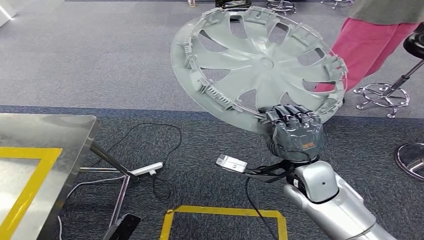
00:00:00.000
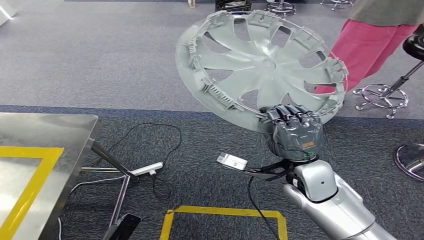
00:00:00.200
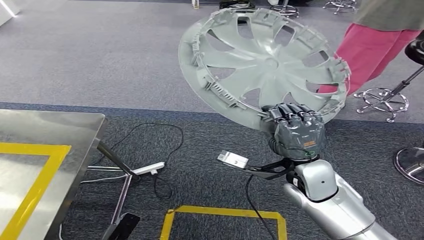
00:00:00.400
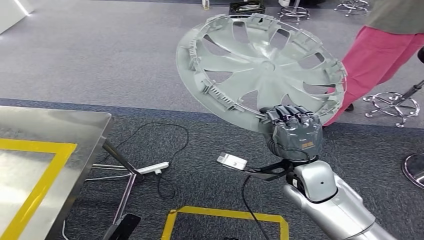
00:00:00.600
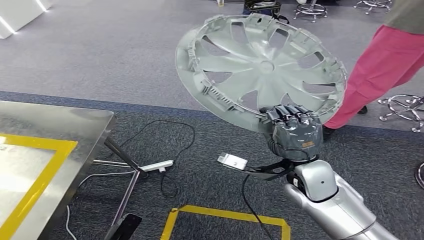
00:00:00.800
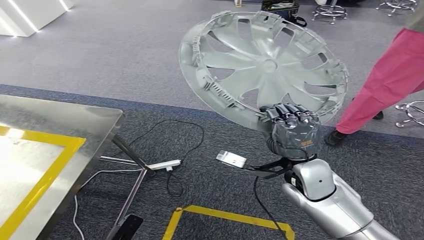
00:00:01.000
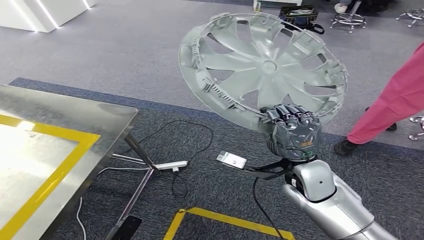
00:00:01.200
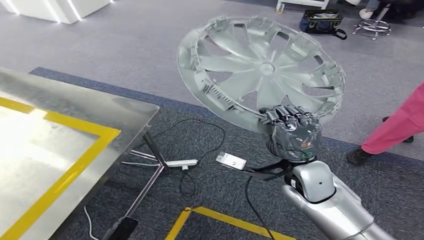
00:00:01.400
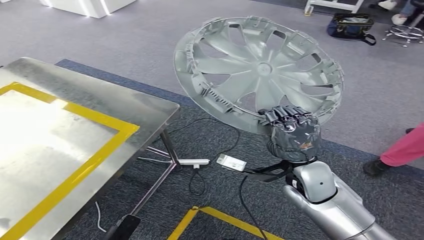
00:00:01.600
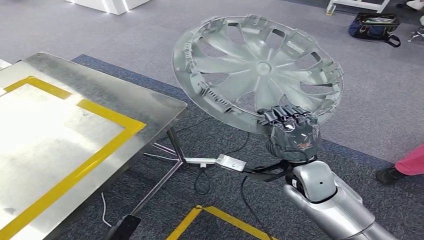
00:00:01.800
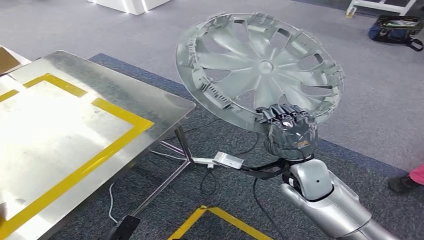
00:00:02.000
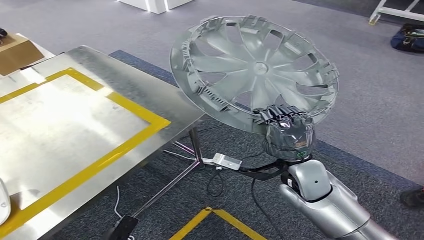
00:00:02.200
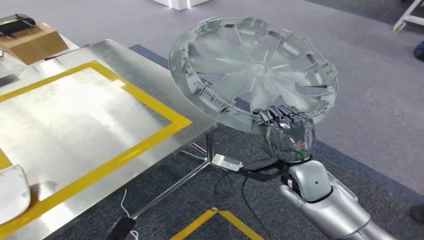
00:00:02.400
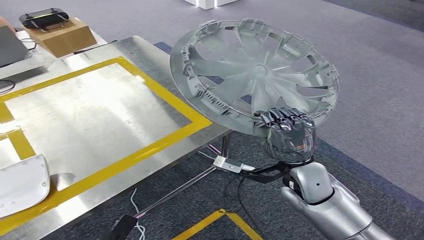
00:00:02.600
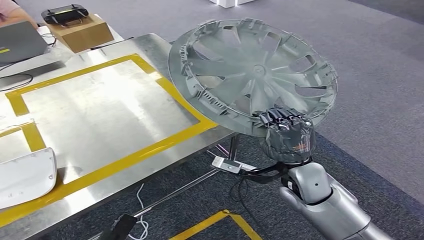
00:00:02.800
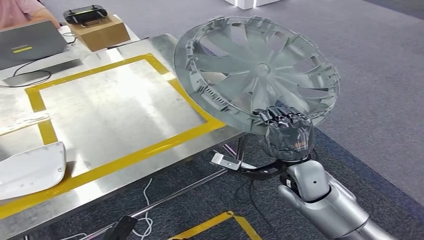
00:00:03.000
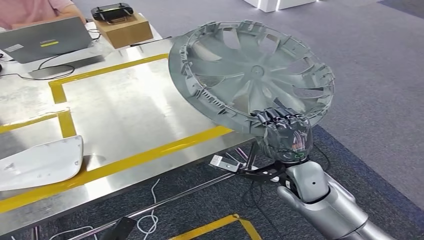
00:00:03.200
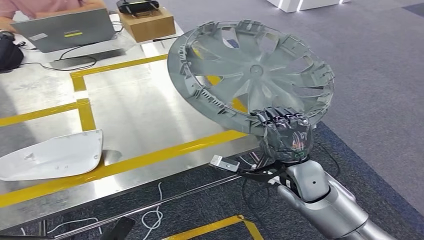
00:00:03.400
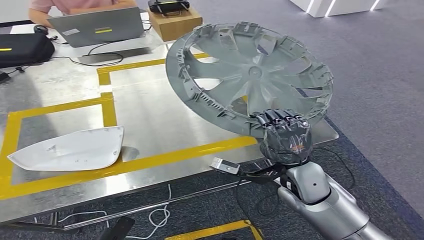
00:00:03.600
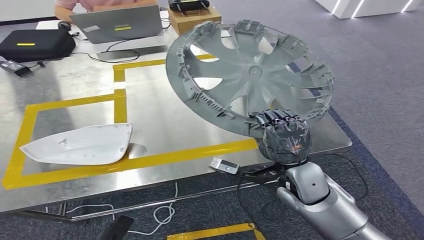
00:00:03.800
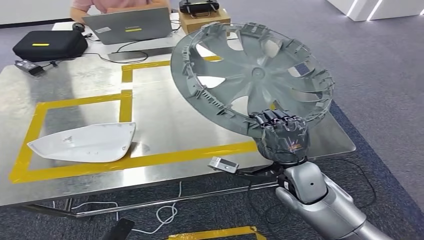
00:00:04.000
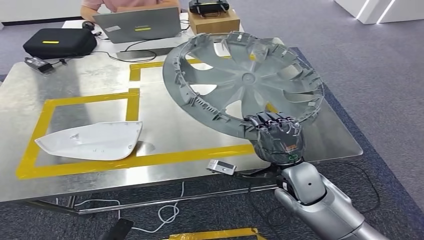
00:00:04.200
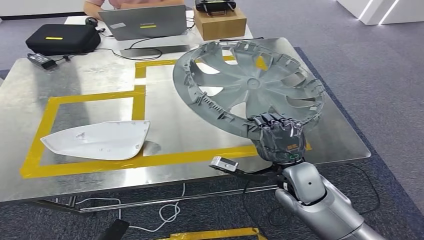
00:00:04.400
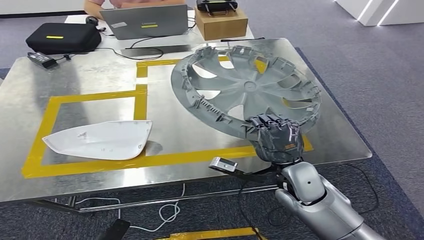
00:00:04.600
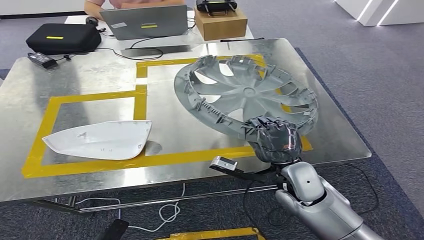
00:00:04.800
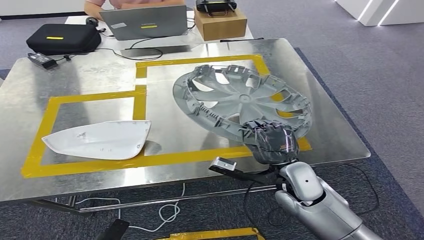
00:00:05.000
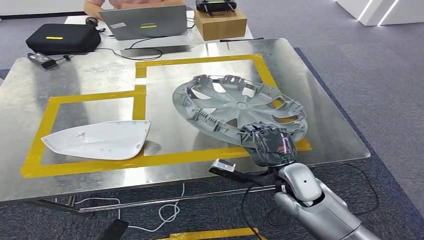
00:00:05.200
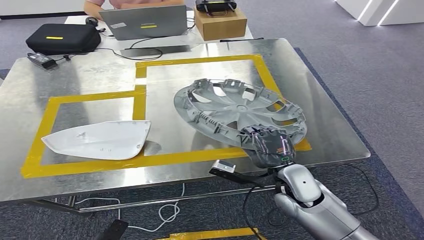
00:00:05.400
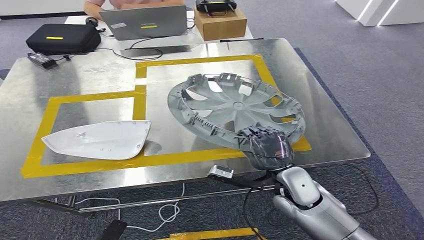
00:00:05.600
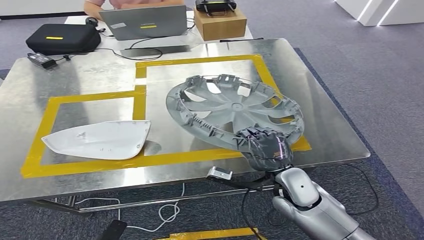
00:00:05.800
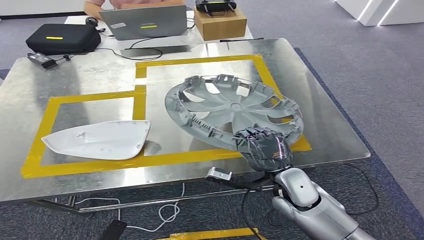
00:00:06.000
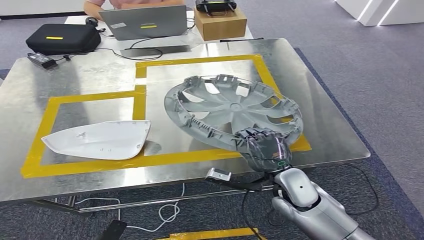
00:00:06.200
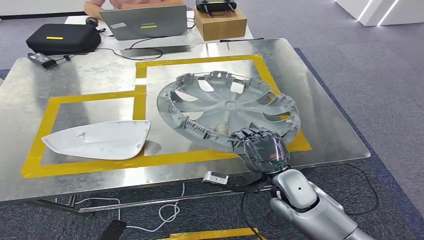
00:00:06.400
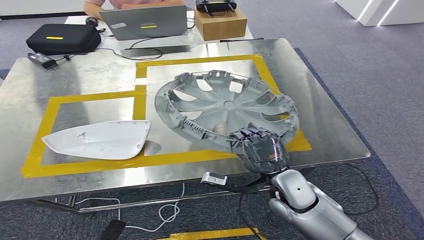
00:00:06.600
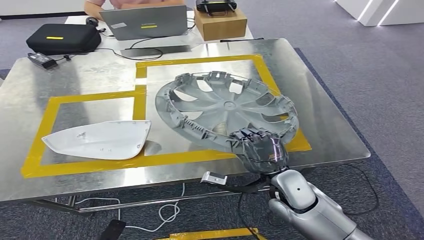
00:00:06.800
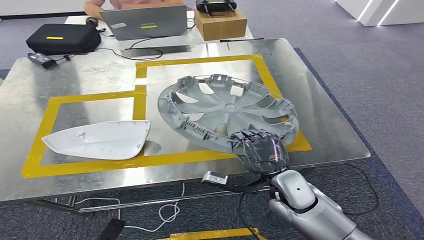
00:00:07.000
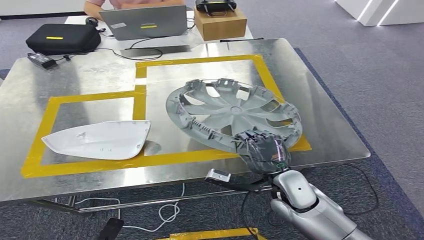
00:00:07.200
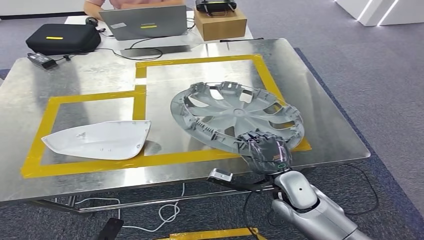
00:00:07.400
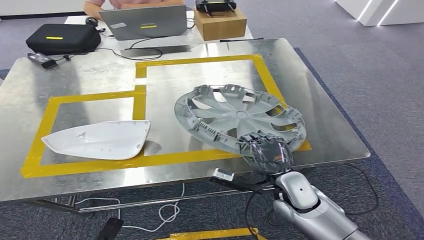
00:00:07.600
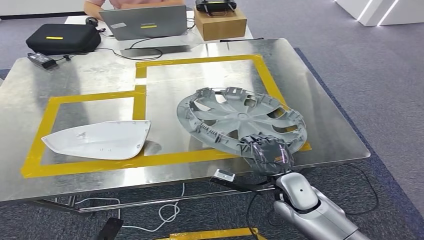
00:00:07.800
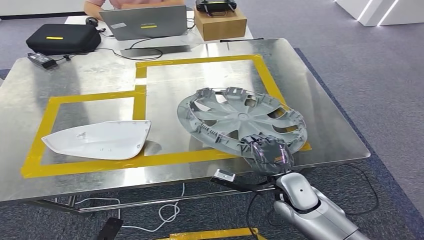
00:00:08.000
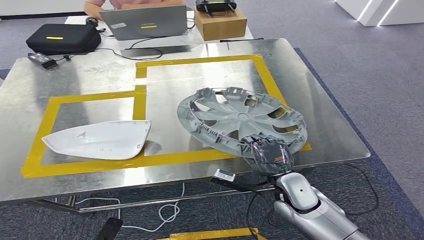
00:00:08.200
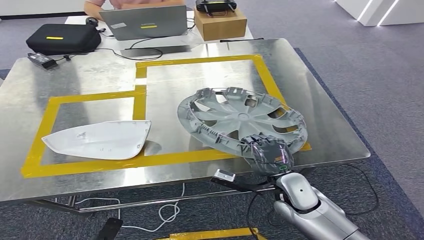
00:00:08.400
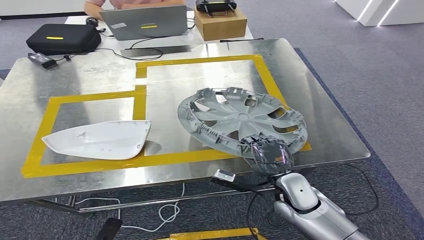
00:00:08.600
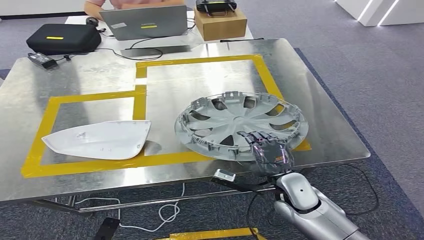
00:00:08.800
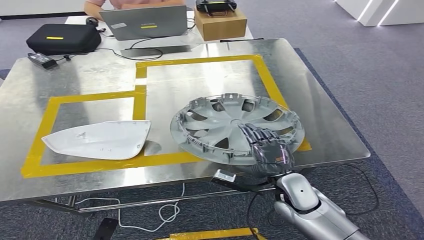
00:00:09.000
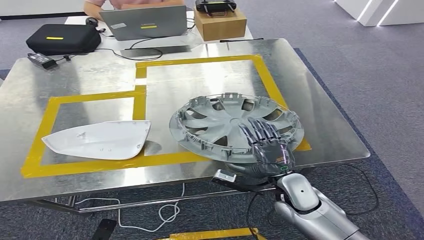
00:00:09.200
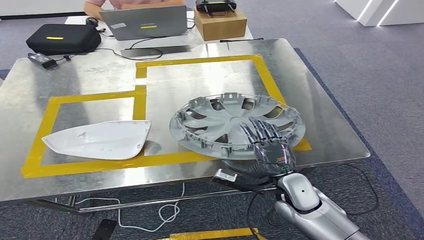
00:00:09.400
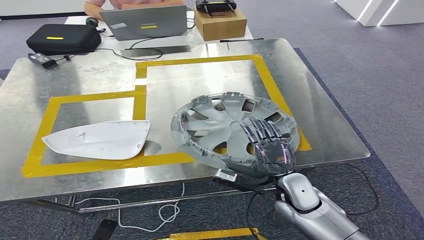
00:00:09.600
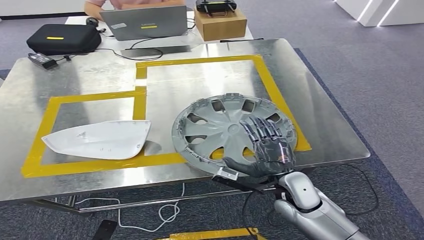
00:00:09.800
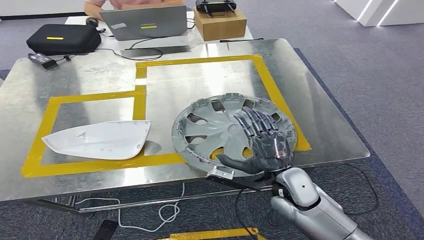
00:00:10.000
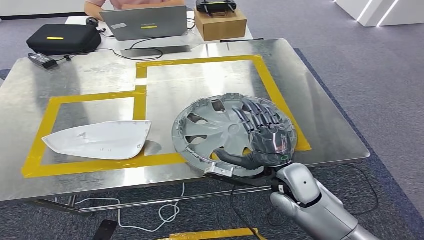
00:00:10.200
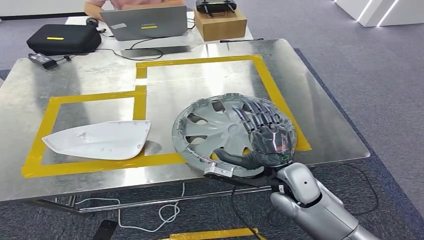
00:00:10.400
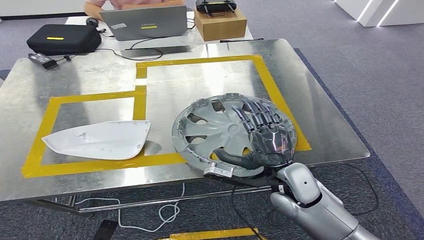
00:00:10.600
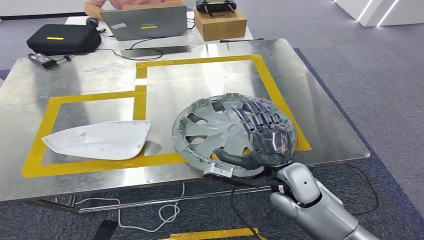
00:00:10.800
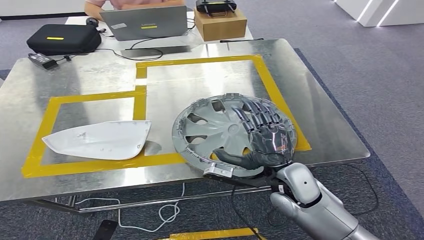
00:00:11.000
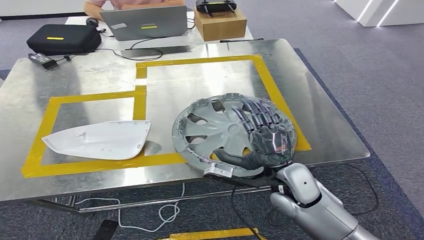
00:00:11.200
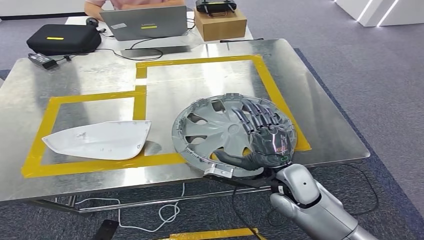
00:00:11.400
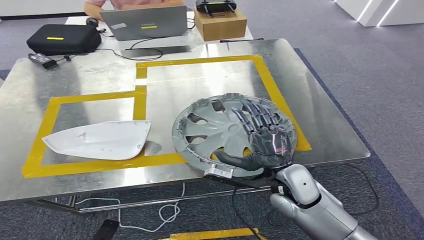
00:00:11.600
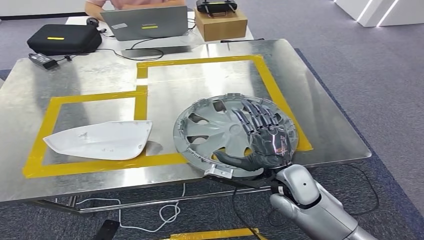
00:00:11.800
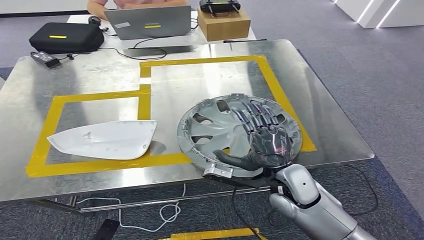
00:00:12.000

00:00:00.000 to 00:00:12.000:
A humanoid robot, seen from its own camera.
Step, 00:00:00.000 to 00:00:05.200: Move the small component to the workbench.
00:00:04.400 to 00:00:07.600: The hands stay close to where they were, moving slightly.
00:00:07.600 to 00:00:09.000: The hands stay close to where they were, moving slightly.
00:00:09.000 to 00:00:10.400: The right hand travels upward by about 5 cm.
00:00:10.400 to 00:00:12.000: Neither hand changes place.

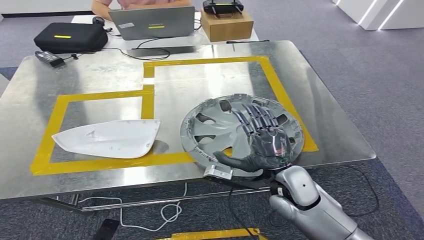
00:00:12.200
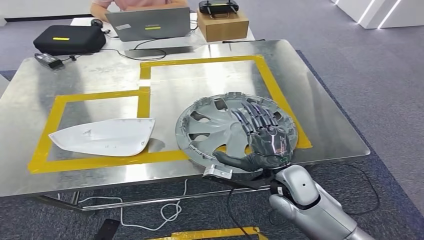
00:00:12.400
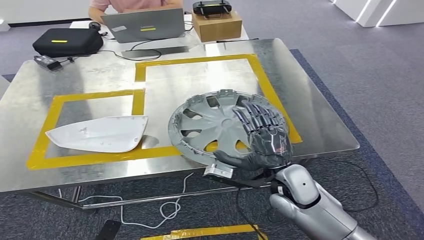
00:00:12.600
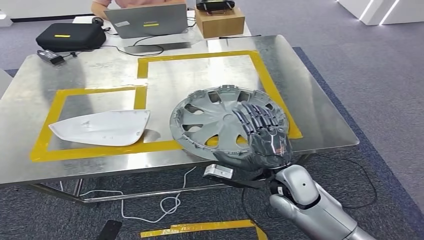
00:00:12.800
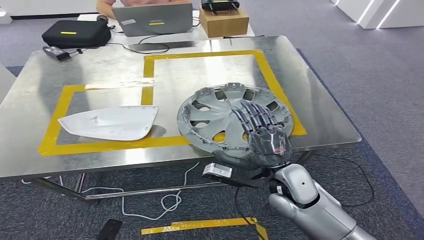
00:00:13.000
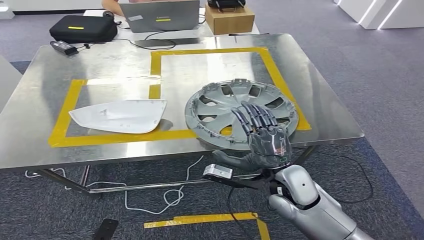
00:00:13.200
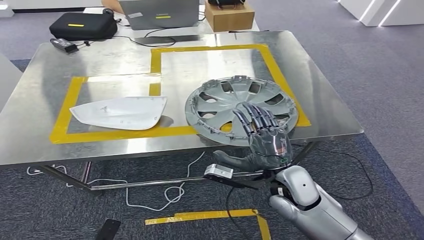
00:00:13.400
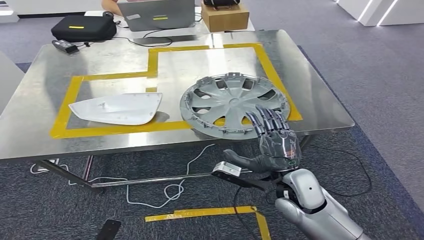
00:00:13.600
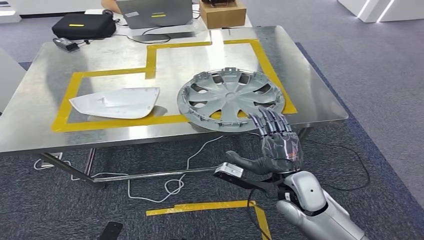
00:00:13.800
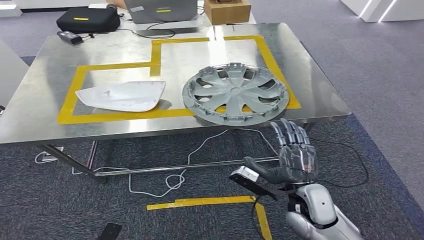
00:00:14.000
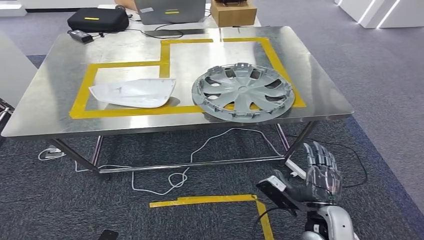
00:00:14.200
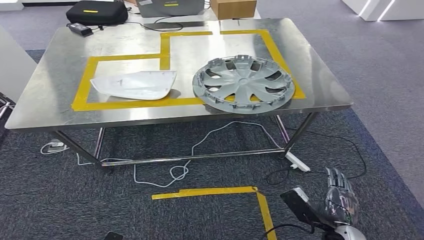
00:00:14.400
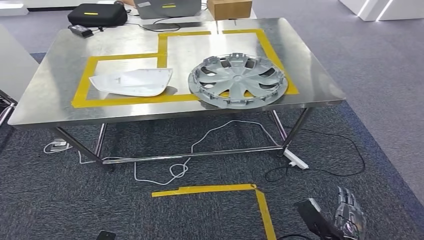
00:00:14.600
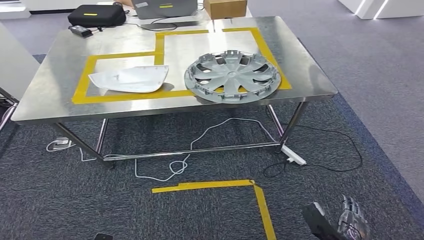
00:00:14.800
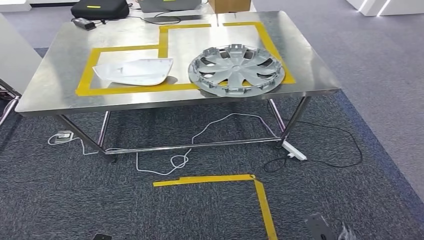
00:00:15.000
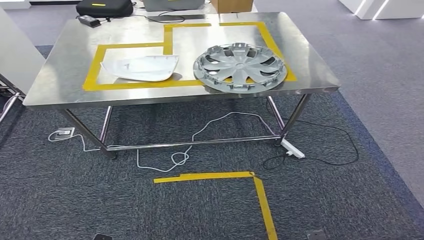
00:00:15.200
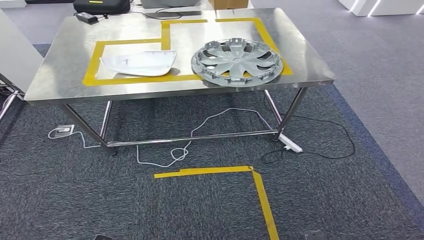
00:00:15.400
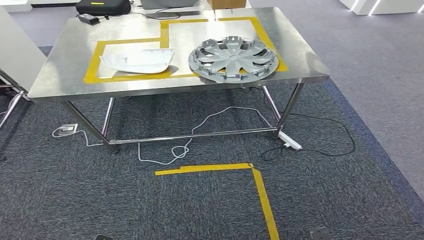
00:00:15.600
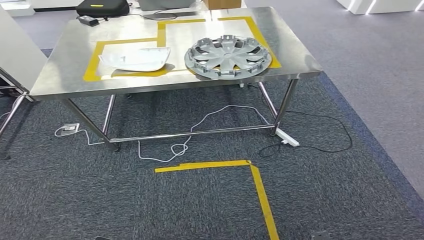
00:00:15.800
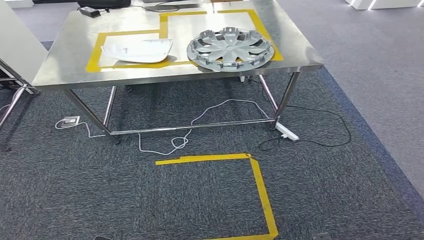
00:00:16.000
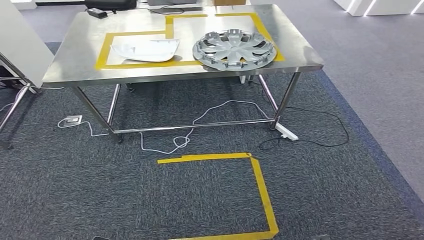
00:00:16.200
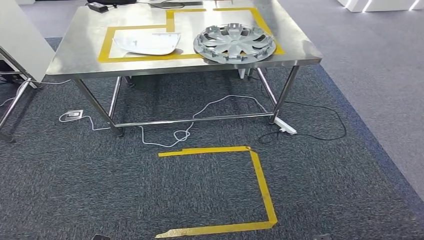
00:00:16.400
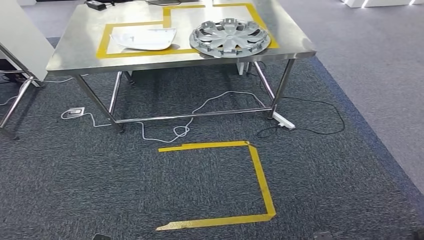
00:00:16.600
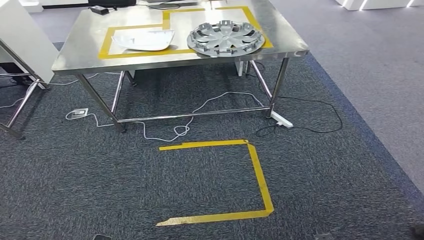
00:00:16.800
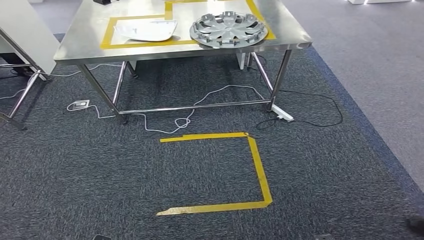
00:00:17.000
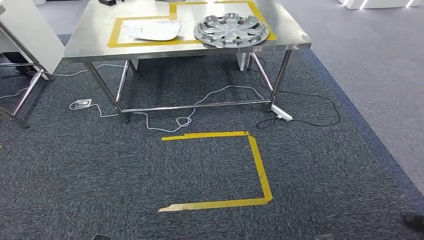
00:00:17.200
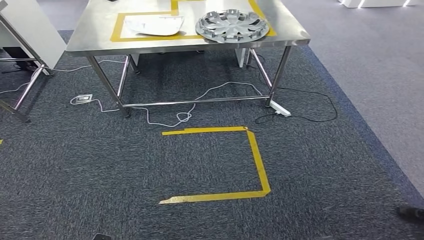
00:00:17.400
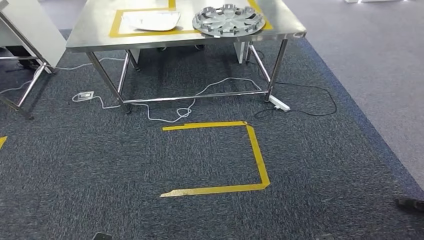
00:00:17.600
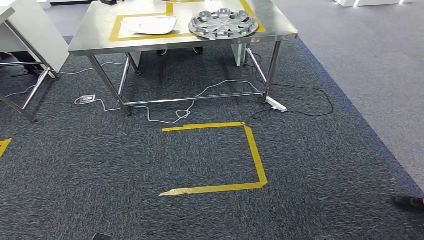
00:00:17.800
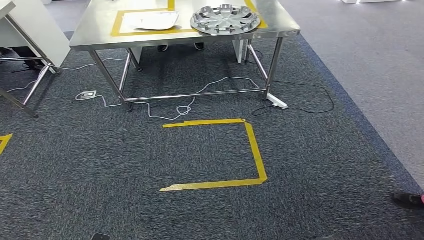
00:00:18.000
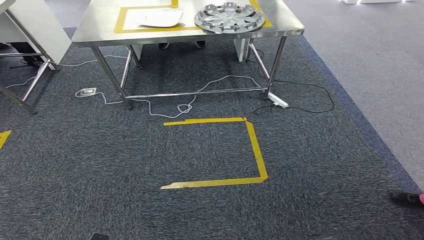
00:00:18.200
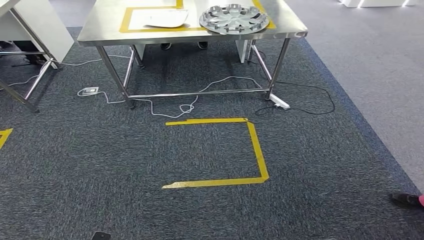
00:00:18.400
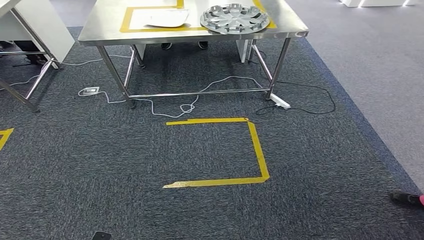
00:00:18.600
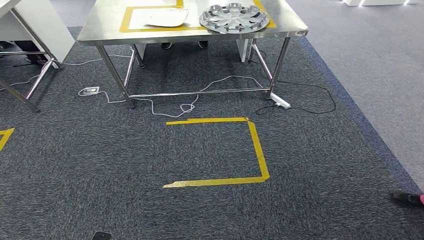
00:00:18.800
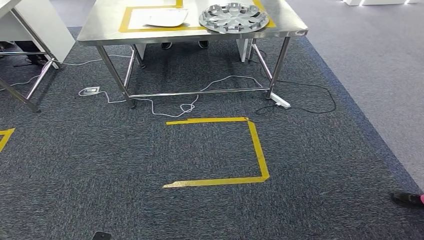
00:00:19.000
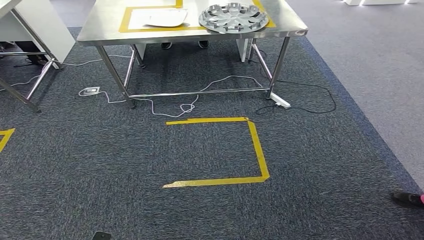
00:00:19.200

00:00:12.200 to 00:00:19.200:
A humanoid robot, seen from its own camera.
00:00:17.800 to 00:00:19.200: There are only small adjustments of the hands.
